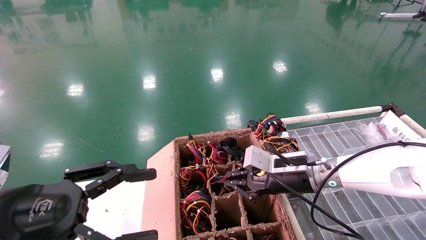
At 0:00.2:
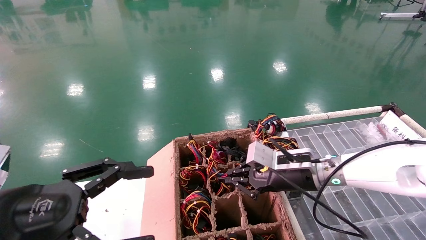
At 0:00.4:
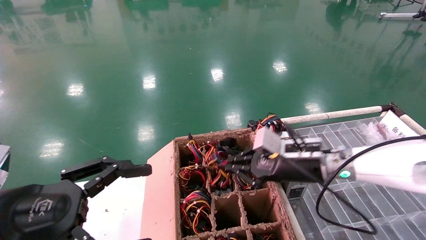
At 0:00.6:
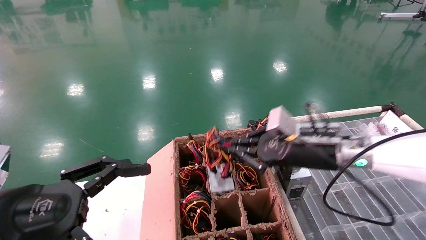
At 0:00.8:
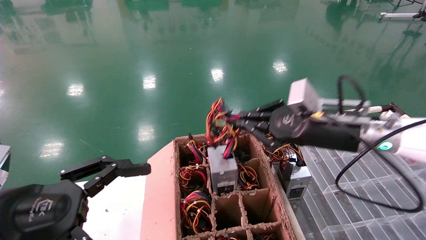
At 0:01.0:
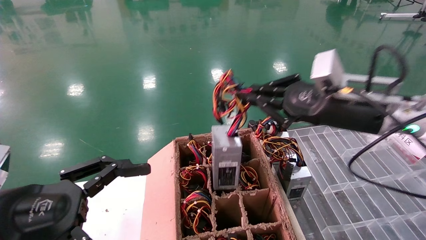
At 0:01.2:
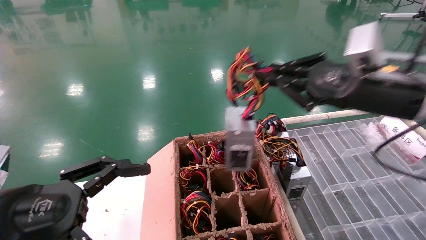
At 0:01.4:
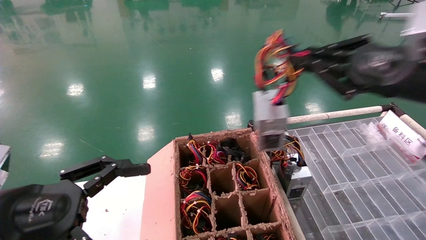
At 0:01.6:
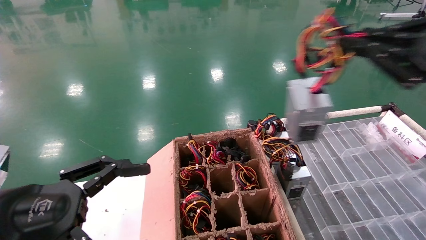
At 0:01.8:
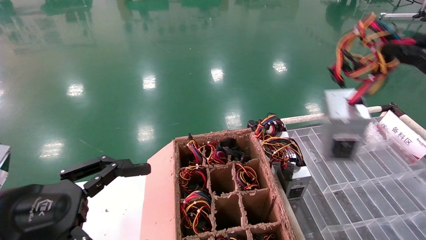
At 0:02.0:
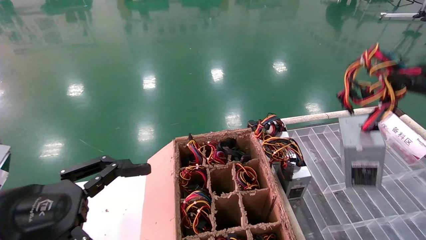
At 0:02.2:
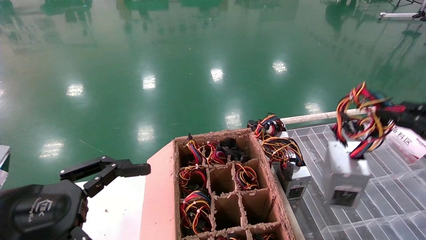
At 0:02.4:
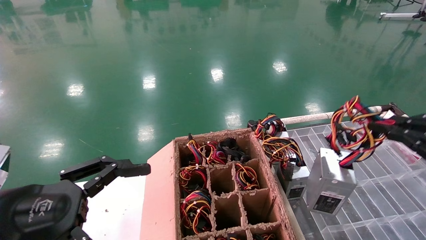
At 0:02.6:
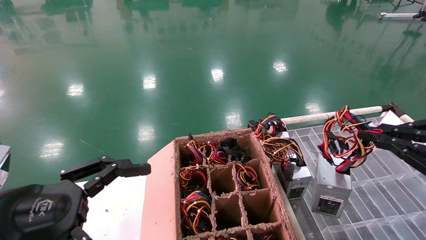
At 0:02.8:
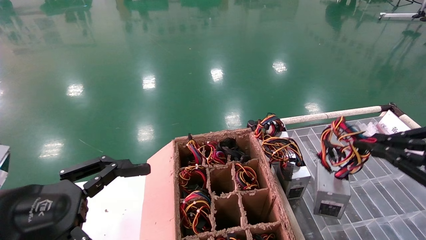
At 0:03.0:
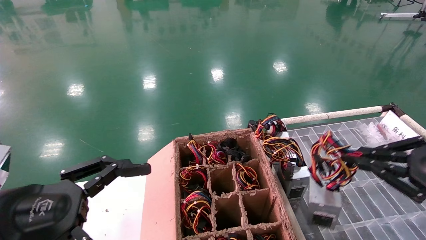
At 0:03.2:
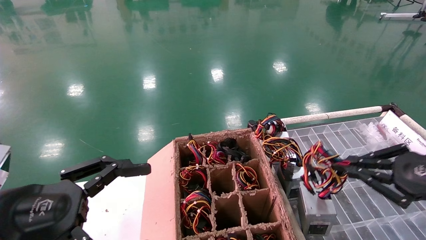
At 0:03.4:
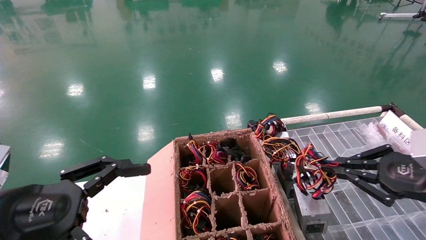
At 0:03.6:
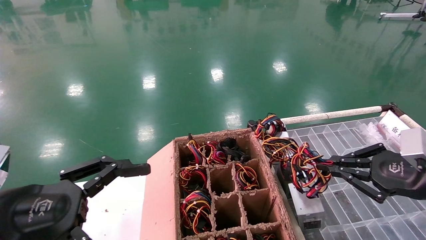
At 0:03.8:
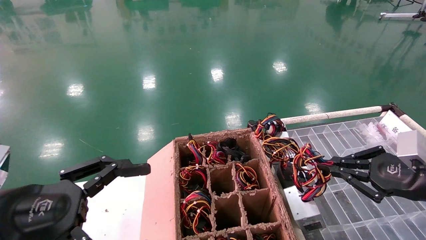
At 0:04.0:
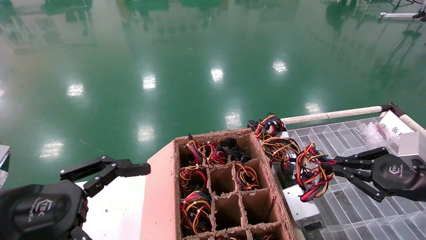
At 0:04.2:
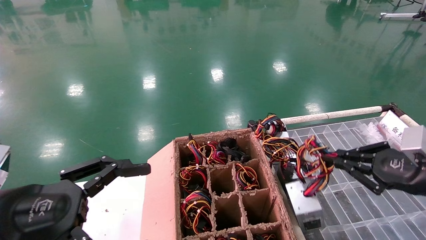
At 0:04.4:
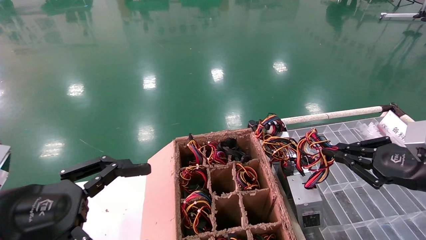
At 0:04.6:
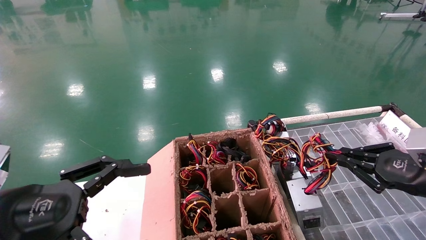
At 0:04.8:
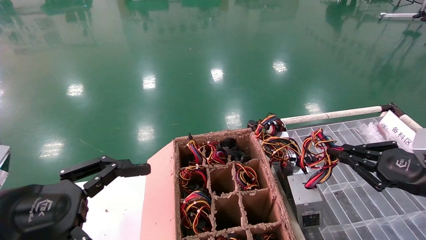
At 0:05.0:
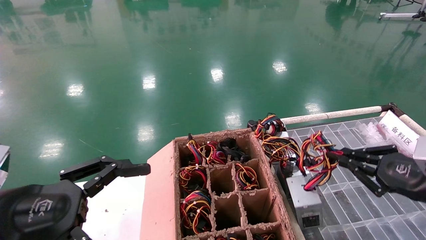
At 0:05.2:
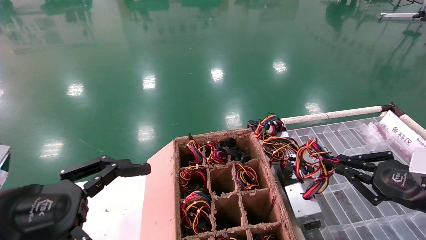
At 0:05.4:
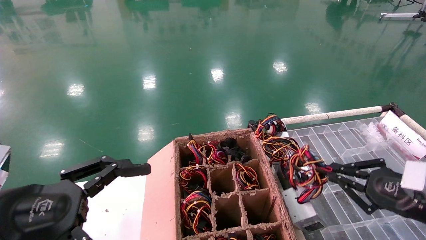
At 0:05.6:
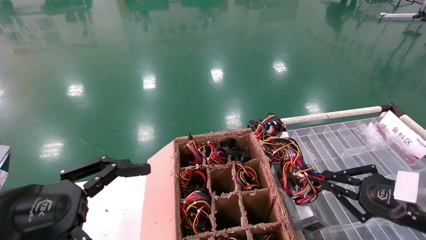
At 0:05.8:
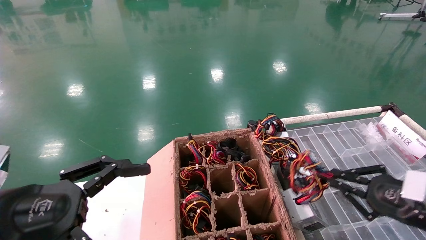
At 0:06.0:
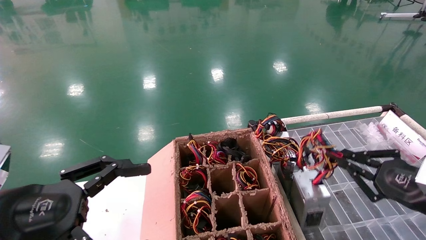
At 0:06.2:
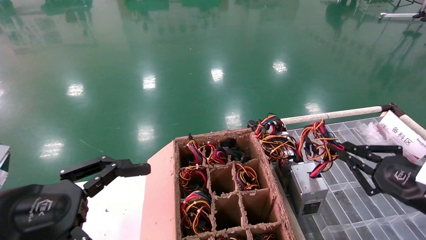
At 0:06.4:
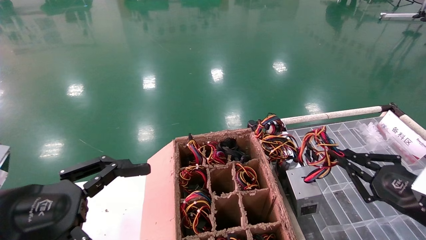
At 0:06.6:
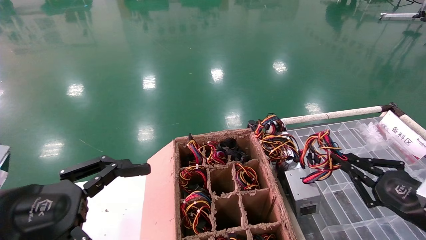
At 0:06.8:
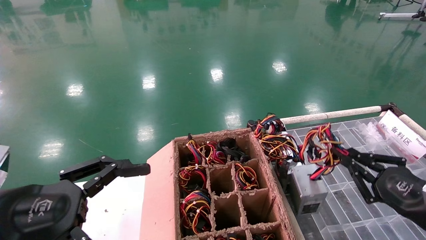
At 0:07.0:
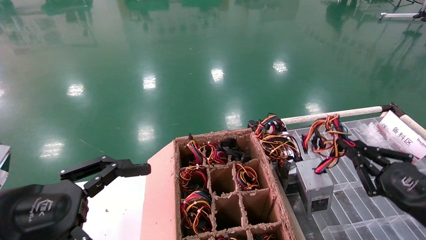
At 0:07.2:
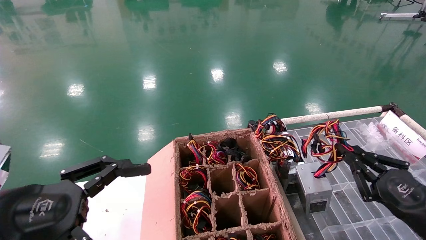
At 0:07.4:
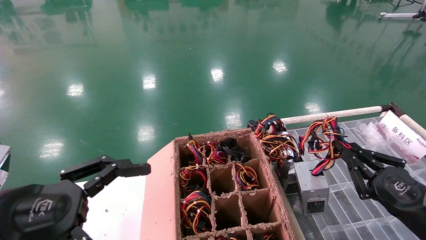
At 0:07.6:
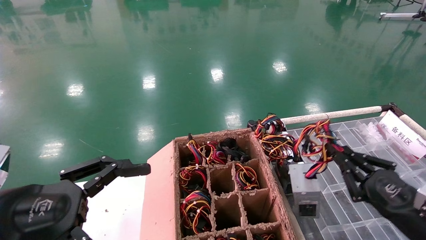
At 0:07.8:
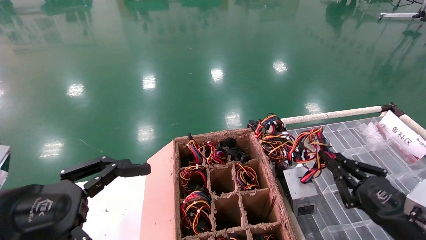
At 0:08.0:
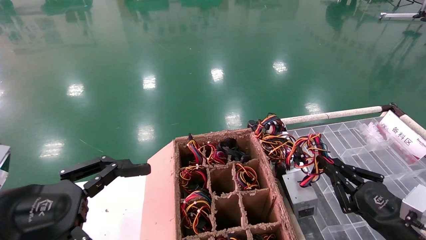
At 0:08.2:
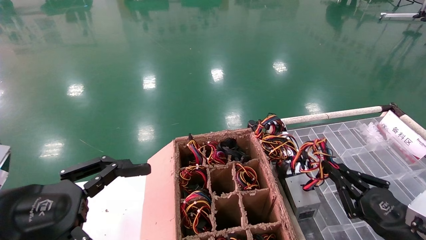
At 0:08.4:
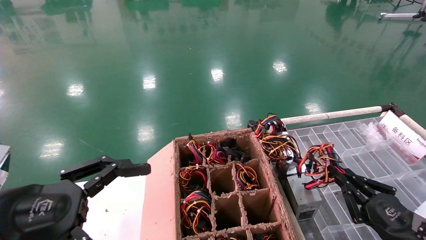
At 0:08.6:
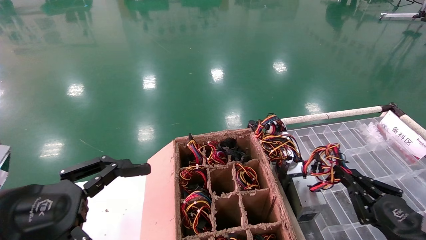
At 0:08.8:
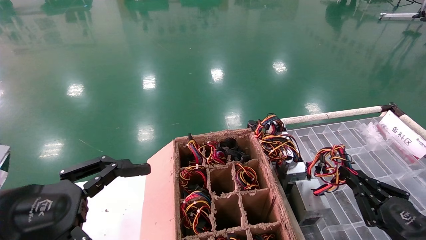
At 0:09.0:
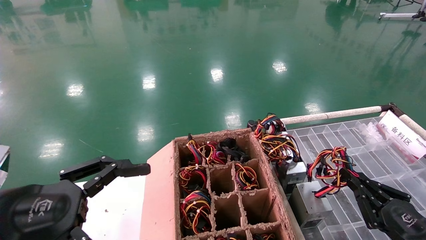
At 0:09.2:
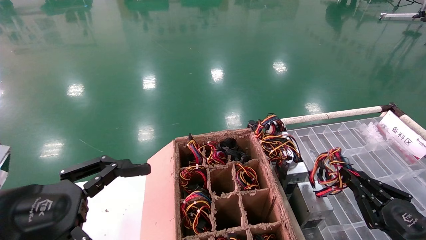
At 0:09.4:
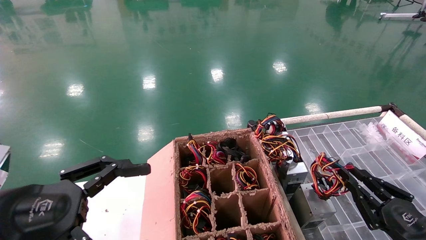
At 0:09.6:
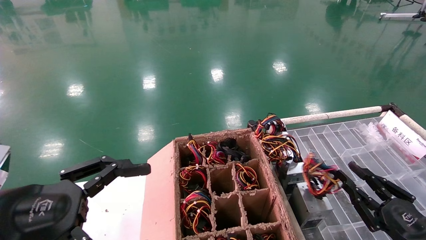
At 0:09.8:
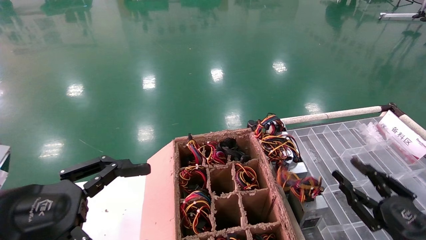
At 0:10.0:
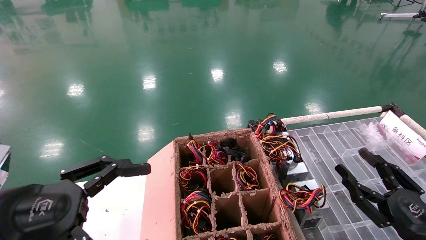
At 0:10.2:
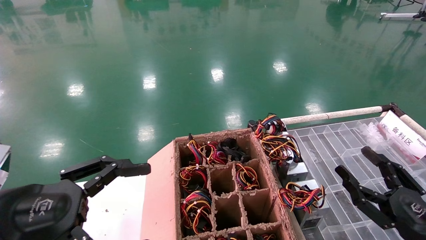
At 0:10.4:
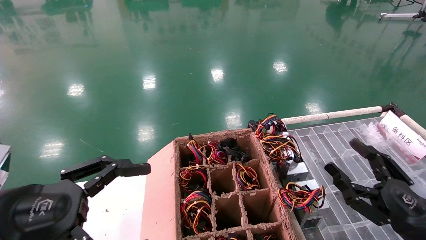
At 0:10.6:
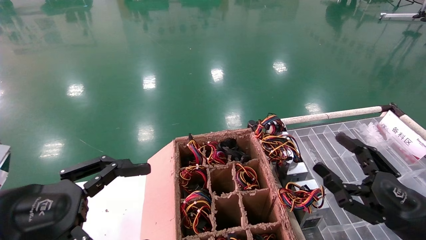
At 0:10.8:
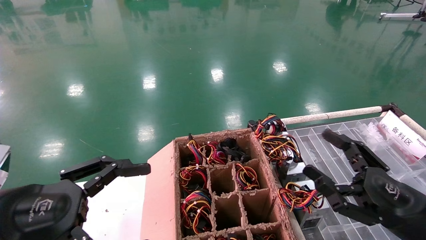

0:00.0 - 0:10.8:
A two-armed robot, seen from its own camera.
Step, 0:00.4 - 0:09.2: Place the power supply on the operating table.
0:00.0 - 0:01.6: The left gripper opens, while the right gripper is displaced to the right, upward and backward by approximately 30 cm.
0:01.6 - 0:03.0: The right gripper travels downward by some 10 cm.
0:03.0 - 0:04.6: The right gripper goes roughly 5 cm forward.
0:04.6 - 0:06.2: The right gripper travels downward by roughly 5 cm.
0:06.2 - 0:07.8: The right gripper moves downward, some 5 cm.
0:07.8 - 0:09.2: The right gripper moves about 5 cm.
0:09.2 - 0:10.8: The right gripper travels upward and to the left by roughly 10 cm, and opens its fingers.
